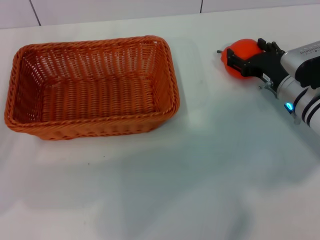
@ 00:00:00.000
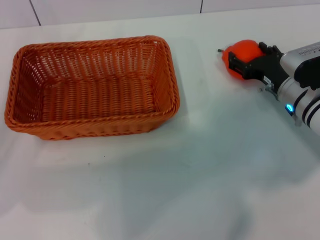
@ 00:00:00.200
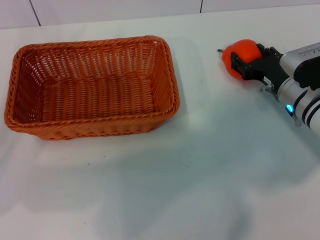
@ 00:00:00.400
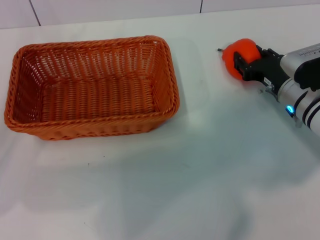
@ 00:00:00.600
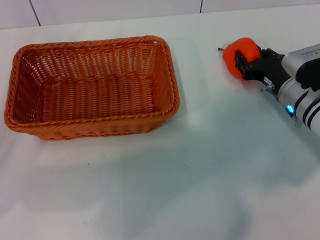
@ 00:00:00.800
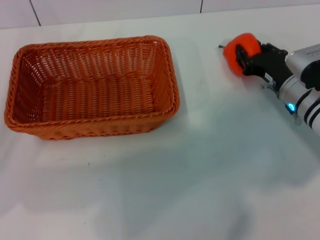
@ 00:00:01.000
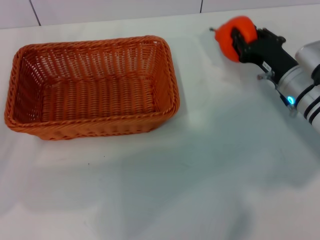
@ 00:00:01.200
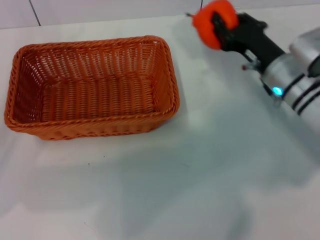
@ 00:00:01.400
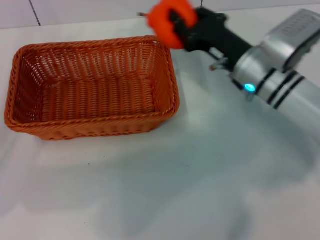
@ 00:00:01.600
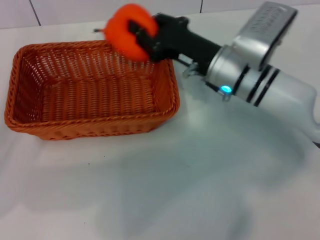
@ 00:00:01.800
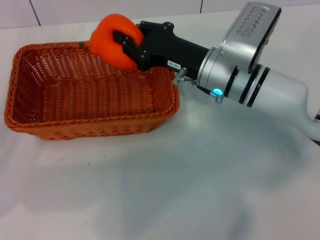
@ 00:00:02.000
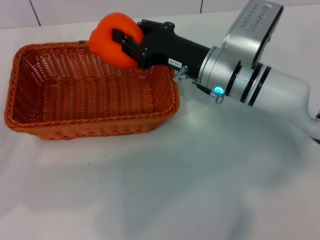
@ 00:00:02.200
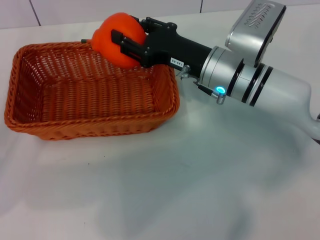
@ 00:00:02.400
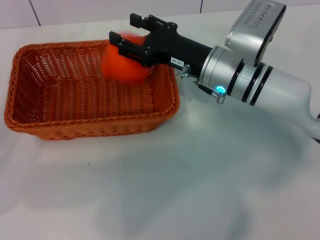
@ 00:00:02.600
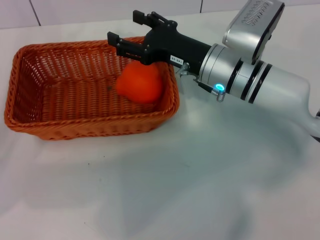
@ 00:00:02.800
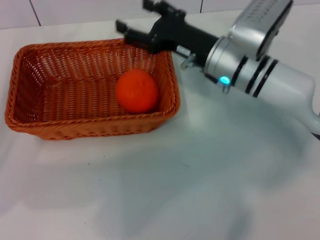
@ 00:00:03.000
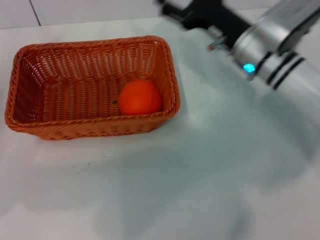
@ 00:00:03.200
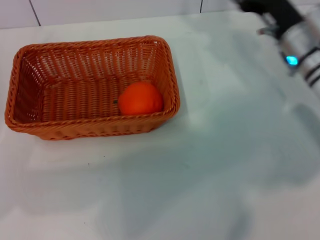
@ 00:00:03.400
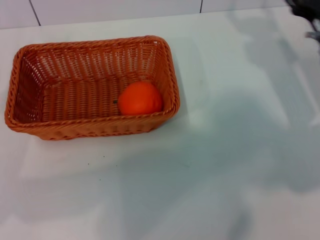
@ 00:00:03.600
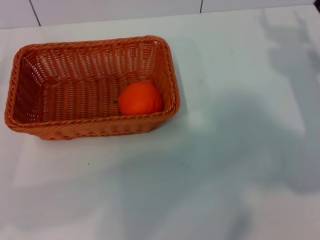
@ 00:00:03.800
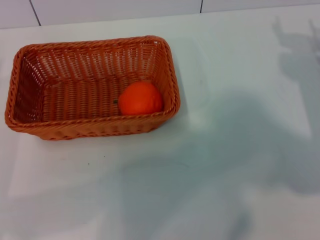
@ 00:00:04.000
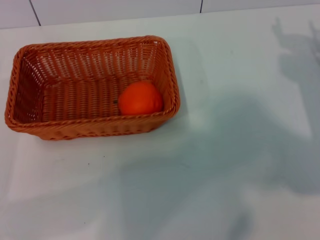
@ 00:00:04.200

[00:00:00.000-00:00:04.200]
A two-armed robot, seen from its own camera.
Task of the whole recording: the left gripper pick up the yellow basket and place it horizontally in the middle of the table, the right gripper pick up the orange and place it into the yellow basket.
Step, 00:00:00.000 to 00:00:01.200: Pick up the orange with the right gripper.
Step, 00:00:01.600 to 00:00:03.000: Place the orange into the light basket with the right gripper.
00:00:00.000 to 00:00:01.400: The right gripper closes its fingers.
00:00:01.400 to 00:00:02.800: The right gripper goes about 10 cm to the left, and opens.
00:00:02.800 to 00:00:04.200: The right gripper heads to the right, covering some 20 cm; the left gripper changes place by some 5 cm.
